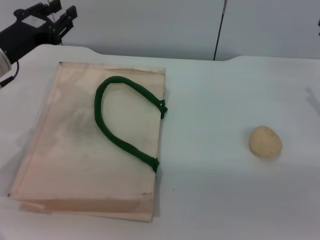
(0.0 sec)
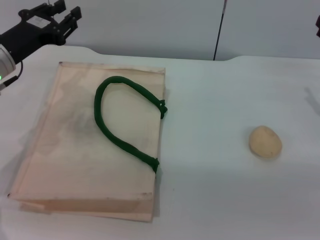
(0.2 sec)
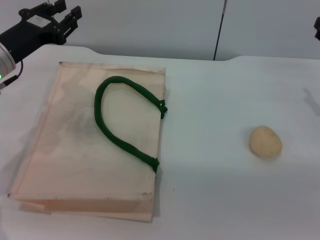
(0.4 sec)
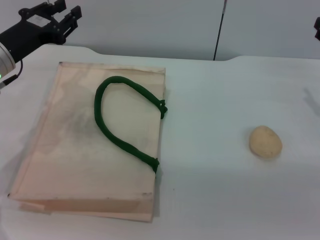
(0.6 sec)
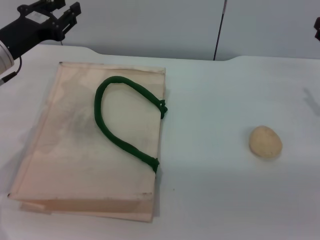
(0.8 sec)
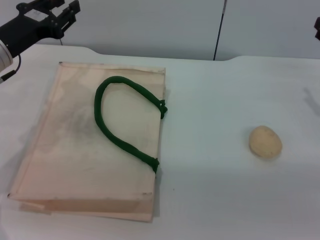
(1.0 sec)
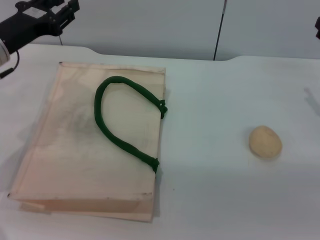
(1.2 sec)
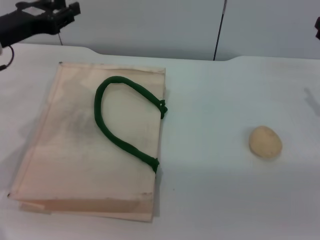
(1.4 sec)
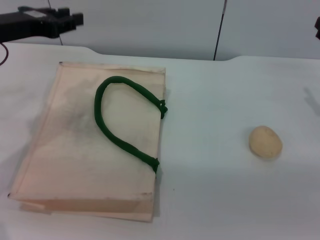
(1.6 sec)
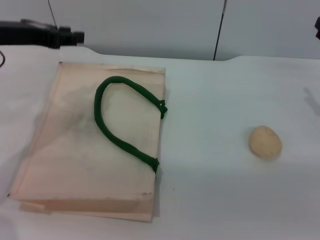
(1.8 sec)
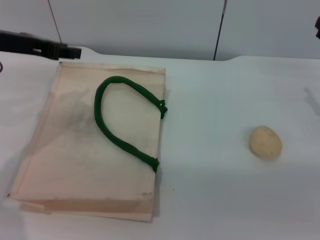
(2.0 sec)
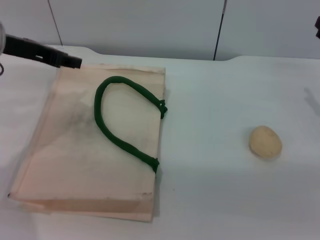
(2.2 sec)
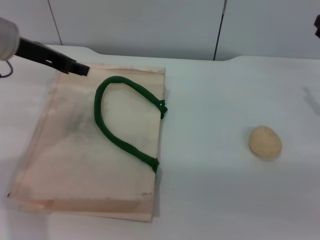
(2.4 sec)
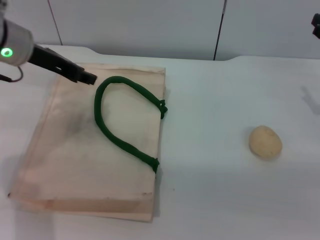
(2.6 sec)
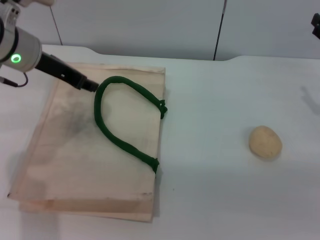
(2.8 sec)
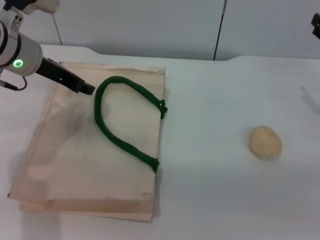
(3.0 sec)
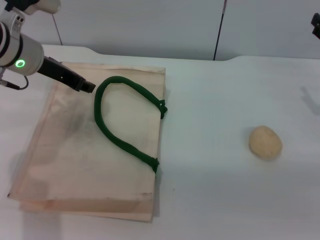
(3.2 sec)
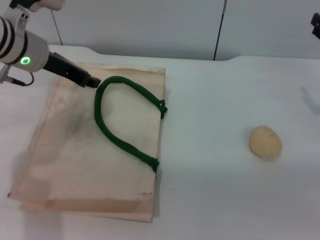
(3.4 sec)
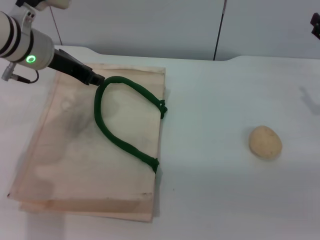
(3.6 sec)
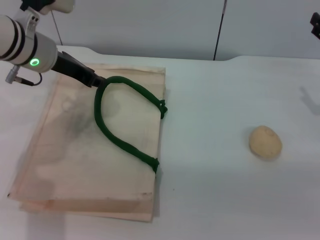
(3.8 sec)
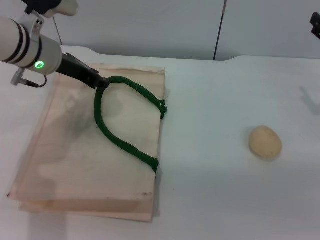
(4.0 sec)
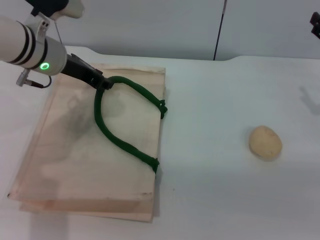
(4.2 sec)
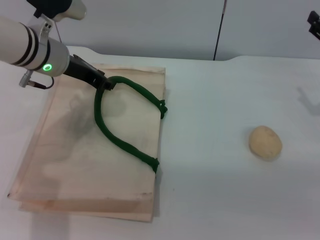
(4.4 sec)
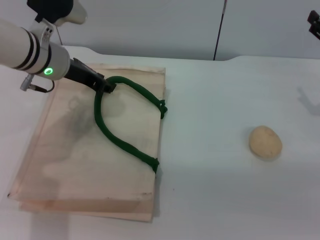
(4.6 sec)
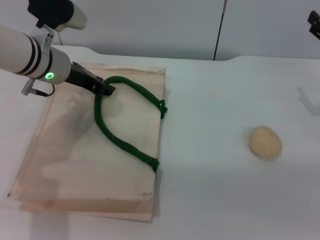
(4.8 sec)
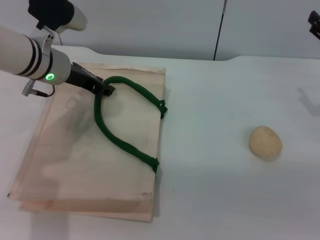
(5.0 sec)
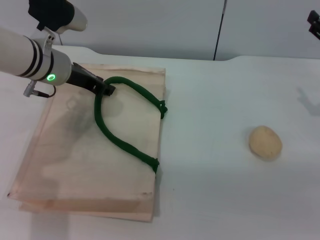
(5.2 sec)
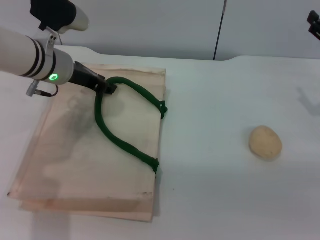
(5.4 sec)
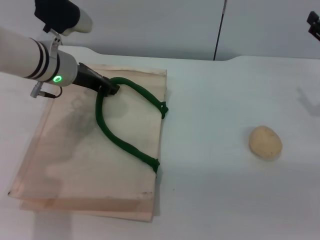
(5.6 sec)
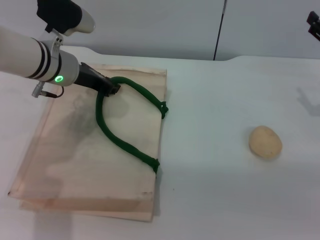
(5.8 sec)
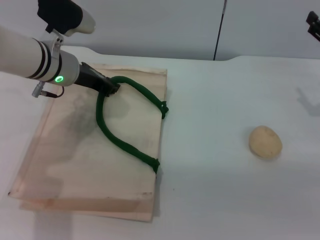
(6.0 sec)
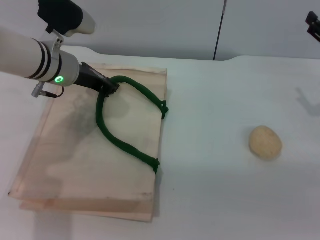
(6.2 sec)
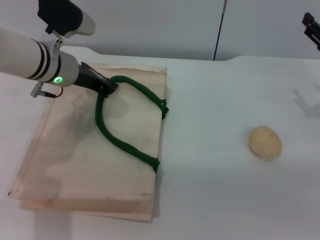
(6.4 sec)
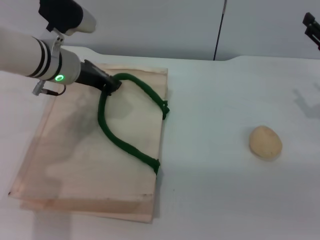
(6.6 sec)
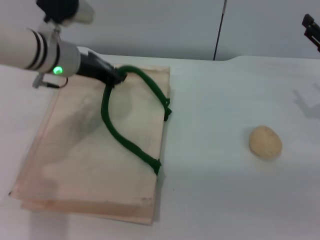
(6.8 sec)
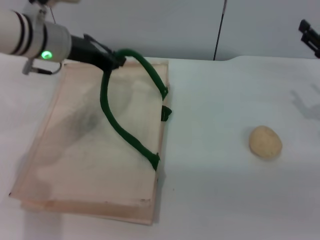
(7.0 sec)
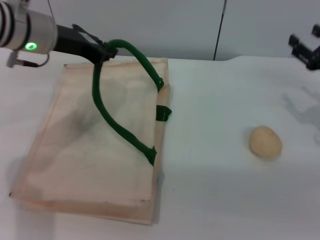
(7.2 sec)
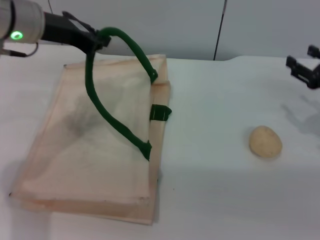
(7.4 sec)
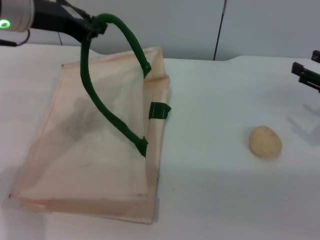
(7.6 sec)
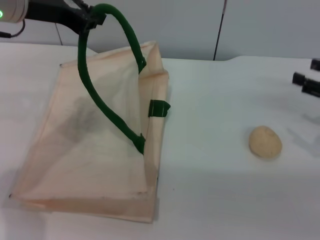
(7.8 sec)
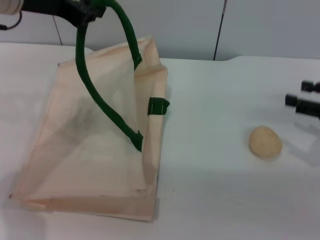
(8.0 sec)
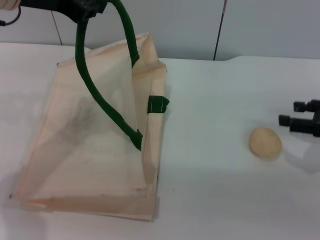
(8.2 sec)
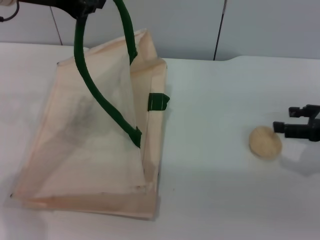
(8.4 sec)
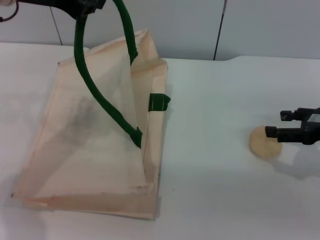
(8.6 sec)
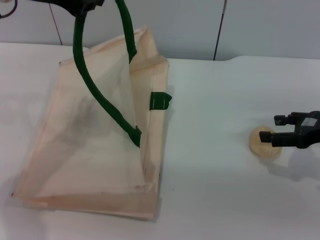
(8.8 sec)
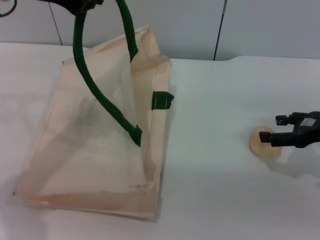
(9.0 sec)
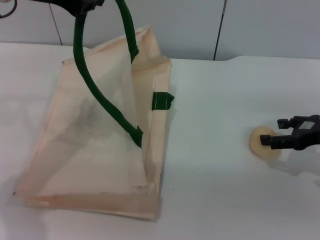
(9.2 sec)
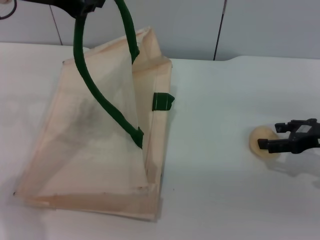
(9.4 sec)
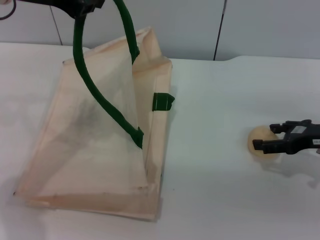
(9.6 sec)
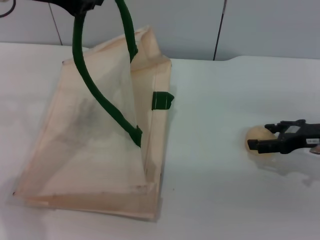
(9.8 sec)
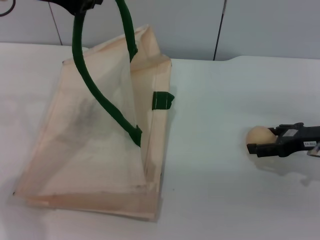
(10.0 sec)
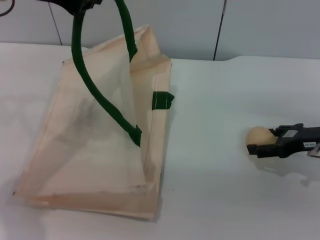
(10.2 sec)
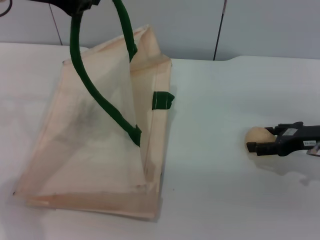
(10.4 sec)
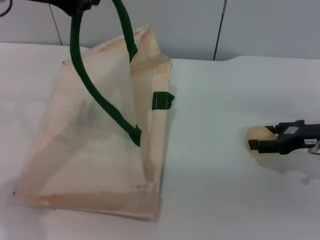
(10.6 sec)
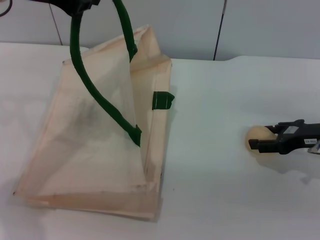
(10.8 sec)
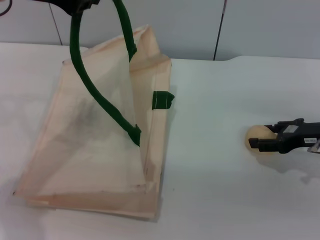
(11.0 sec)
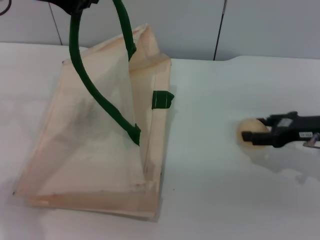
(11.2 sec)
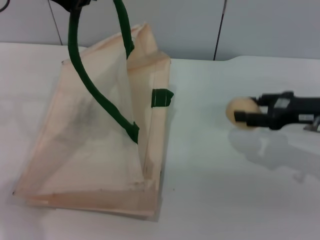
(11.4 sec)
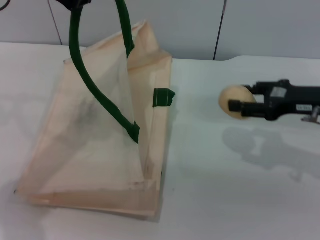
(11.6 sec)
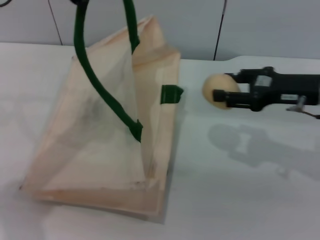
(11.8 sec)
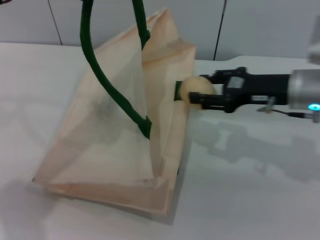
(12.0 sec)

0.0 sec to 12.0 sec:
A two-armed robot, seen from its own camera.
Task of the whole recording: pick up the egg yolk pastry from the table and place it in the white handbag.
Step, 0.0 sec to 6.4 sec: Lift the woven bag with the left gripper to open it.
Step, 6.6 sec to 11.4 sec: Pick up the egg yolk pastry with the right gripper.
0.0 sec to 1.6 sec: The left gripper shifts approximately 5 cm upward.
1.6 sec to 3.0 sec: The left gripper shifts roughly 5 cm to the right.
3.0 sec to 4.4 sec: The grippers make only small movements.
4.4 sec to 6.0 sec: The left gripper closes up.
6.0 sec to 7.6 sec: The left gripper goes roughly 10 cm upward.
7.6 sec to 9.0 sec: The left gripper shifts by about 5 cm. Meanwhile the right gripper opens up.
9.0 sec to 10.4 sec: The grippers make only small movements.
10.4 sec to 12.0 sec: The right gripper goes some 10 cm to the left and upward, and closes up.

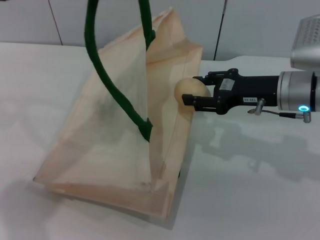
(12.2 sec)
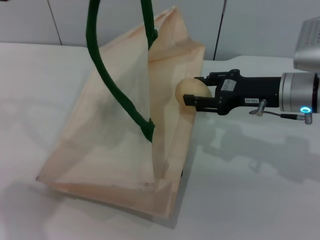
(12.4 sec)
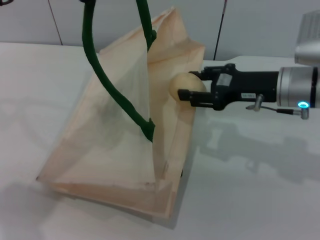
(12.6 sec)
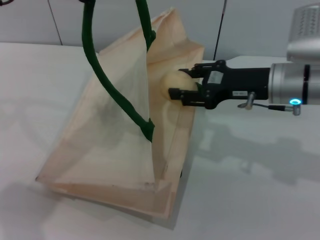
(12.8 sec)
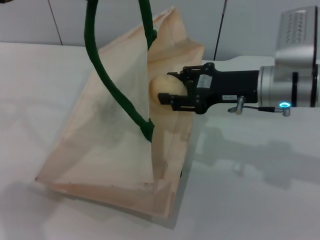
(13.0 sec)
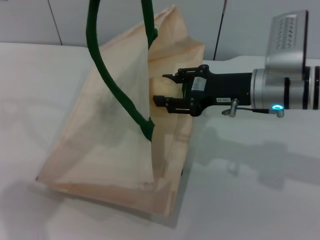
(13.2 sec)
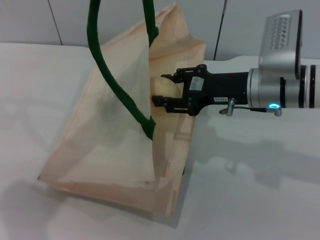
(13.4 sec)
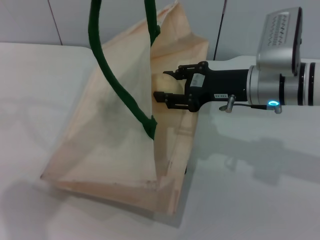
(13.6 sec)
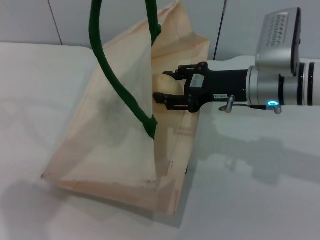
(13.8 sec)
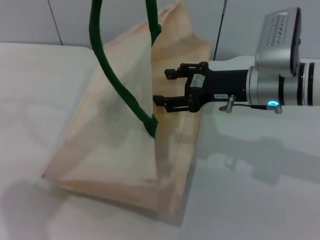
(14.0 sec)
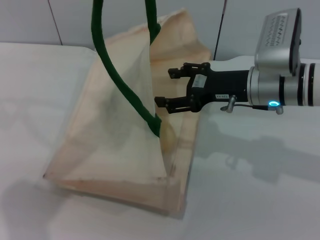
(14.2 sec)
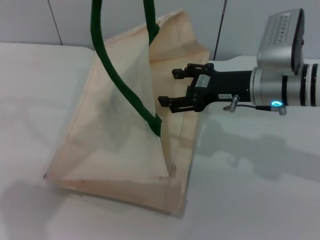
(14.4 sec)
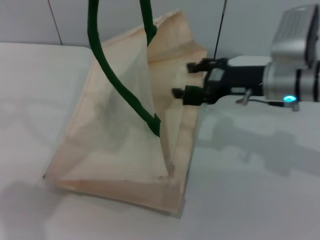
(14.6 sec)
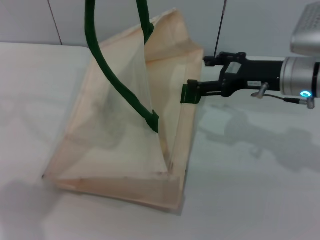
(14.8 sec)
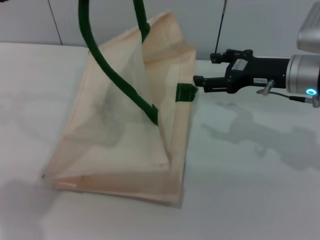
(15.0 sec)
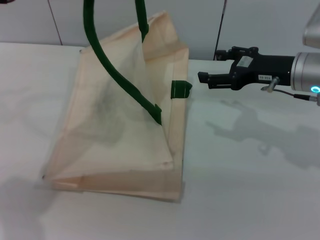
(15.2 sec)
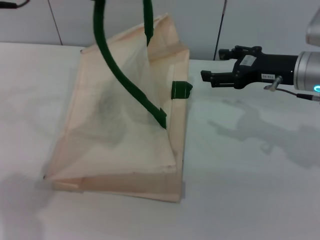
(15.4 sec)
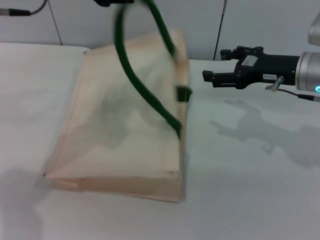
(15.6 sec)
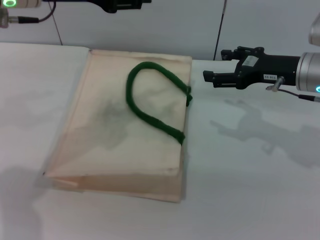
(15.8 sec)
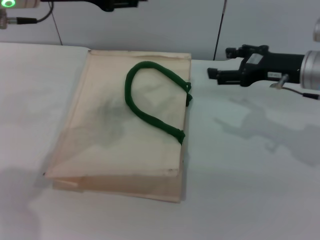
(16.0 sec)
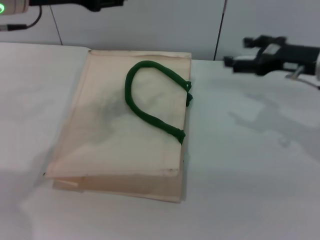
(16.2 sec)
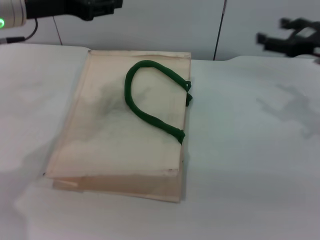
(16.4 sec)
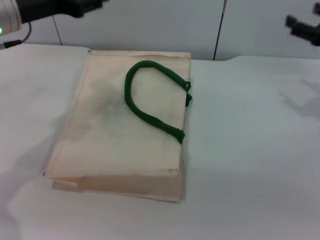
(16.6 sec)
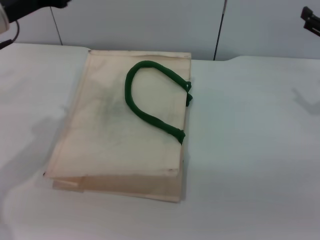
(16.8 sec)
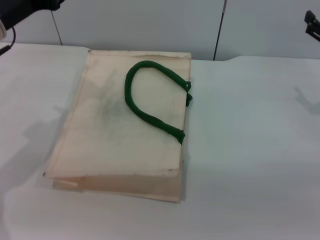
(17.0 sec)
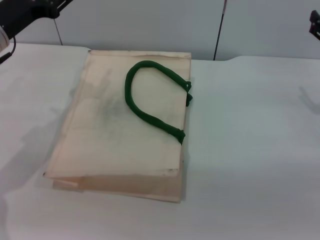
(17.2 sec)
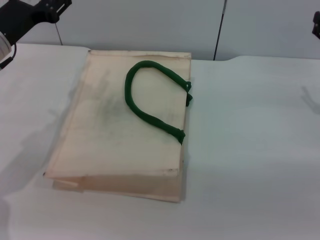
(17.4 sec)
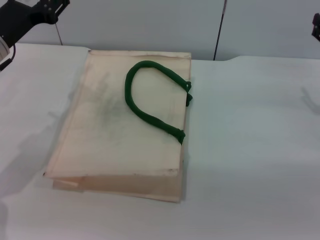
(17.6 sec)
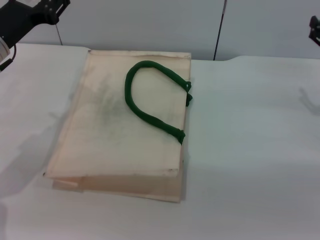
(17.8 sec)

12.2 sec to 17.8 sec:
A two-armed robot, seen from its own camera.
Task of the whole recording: pick up the egg yolk pastry from the table and place it in the white handbag.
Step, 12.2 sec to 14.8 sec: Place the egg yolk pastry into the woven bag with the right gripper.
Step, 15.0 sec to 16.6 sec: Lower the woven bag with the left gripper to close it.
12.2 sec to 13.6 sec: There are only small adjustments of the grippers.
13.6 sec to 15.0 sec: The right gripper heads to the right, covering approximately 5 cm, and opens up.
15.0 sec to 16.4 sec: The left gripper is displaced downward by about 10 cm, and opens its fingers. Meanwhile the right gripper goes about 10 cm to the right.
16.4 sec to 17.8 sec: The left gripper goes about 10 cm downward, while the right gripper moves downward, approximately 5 cm.
